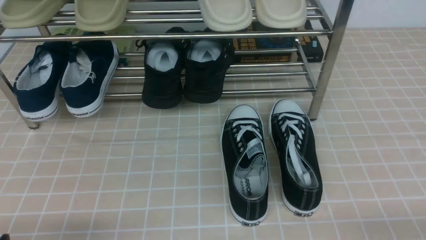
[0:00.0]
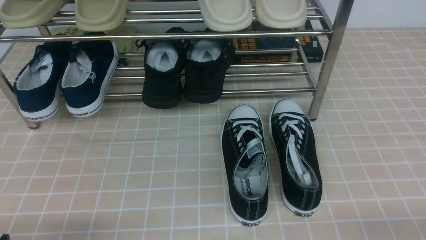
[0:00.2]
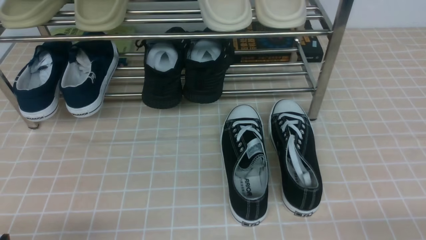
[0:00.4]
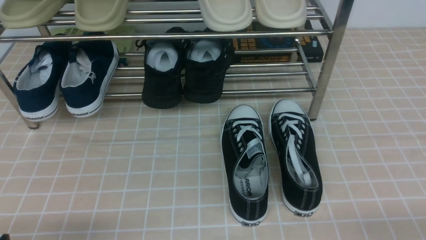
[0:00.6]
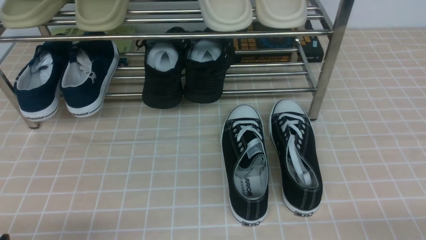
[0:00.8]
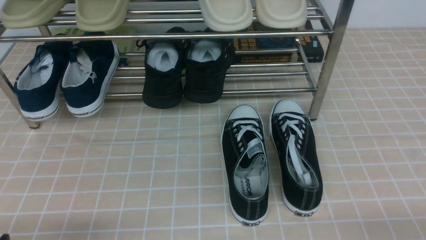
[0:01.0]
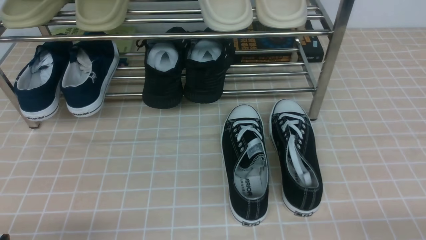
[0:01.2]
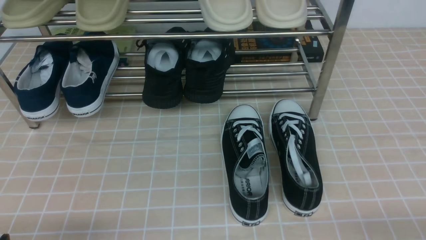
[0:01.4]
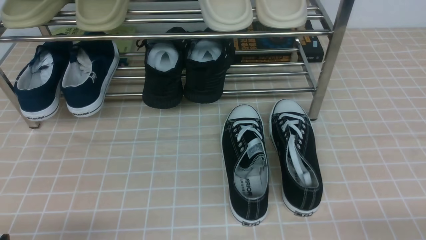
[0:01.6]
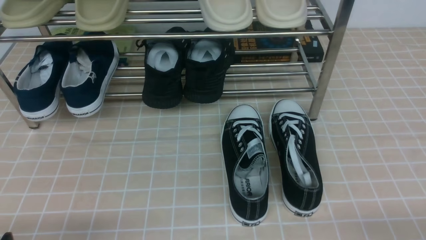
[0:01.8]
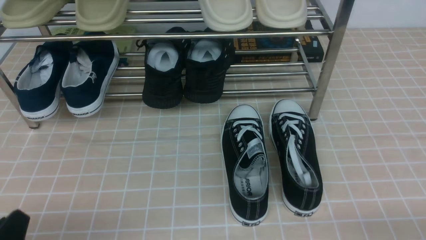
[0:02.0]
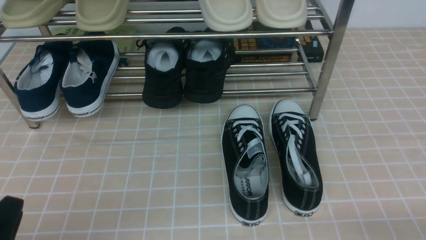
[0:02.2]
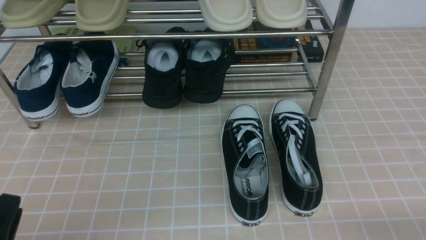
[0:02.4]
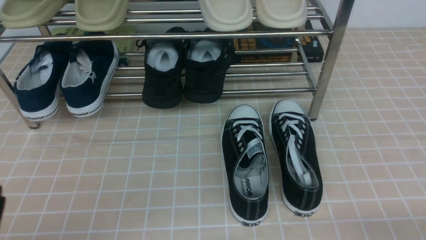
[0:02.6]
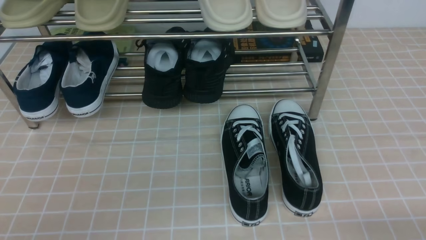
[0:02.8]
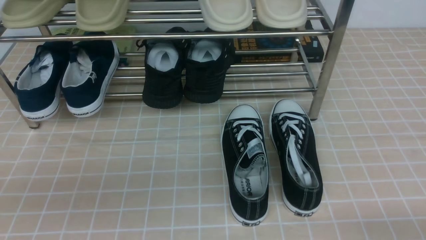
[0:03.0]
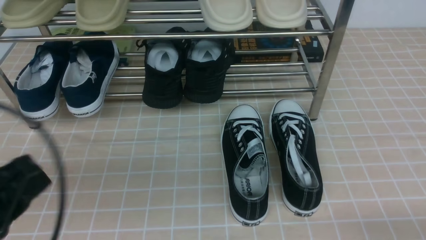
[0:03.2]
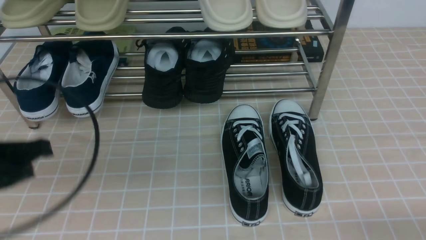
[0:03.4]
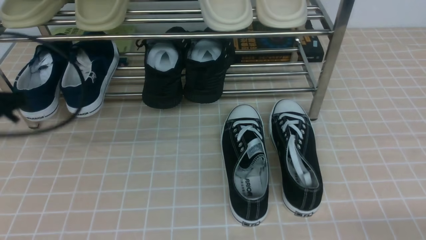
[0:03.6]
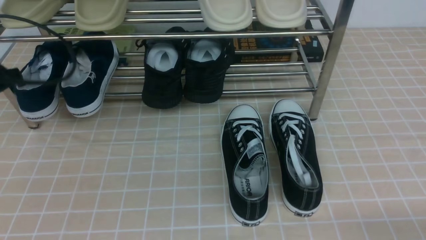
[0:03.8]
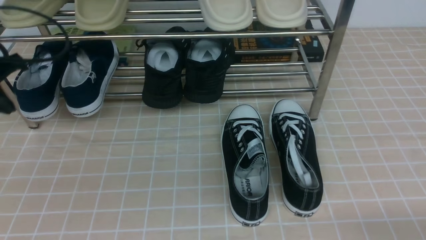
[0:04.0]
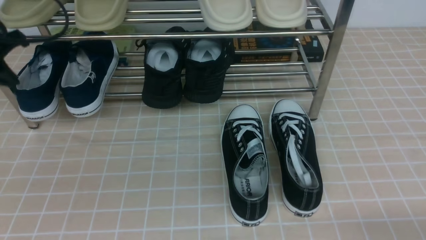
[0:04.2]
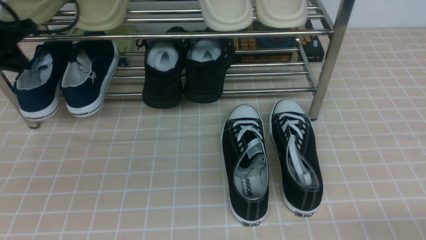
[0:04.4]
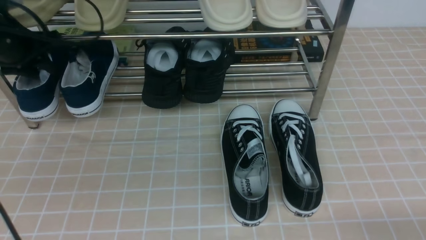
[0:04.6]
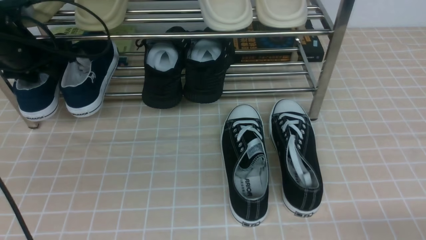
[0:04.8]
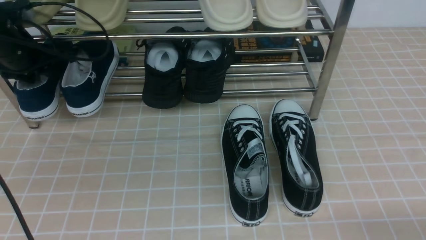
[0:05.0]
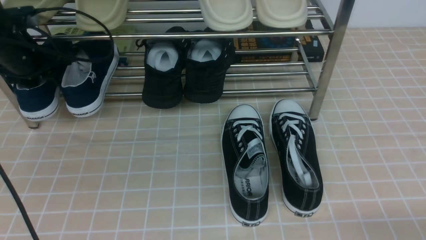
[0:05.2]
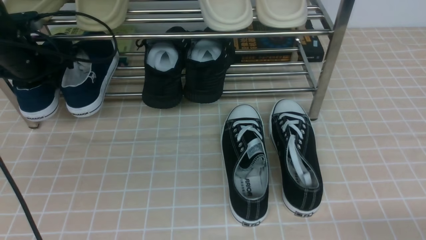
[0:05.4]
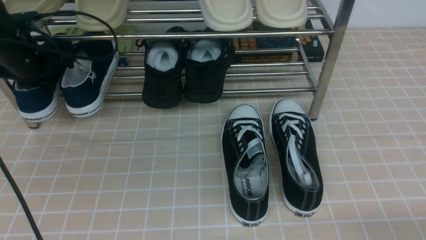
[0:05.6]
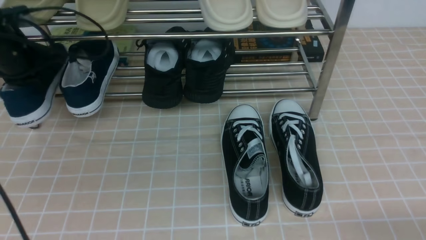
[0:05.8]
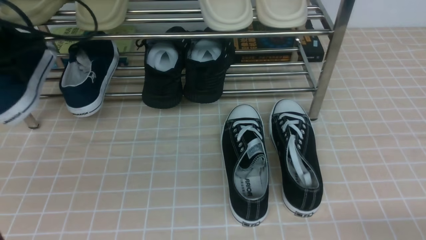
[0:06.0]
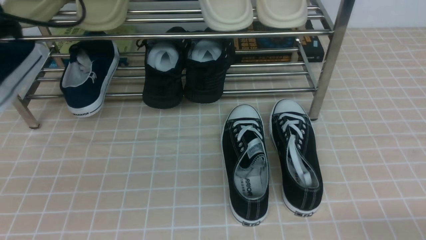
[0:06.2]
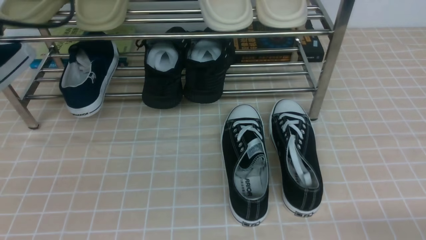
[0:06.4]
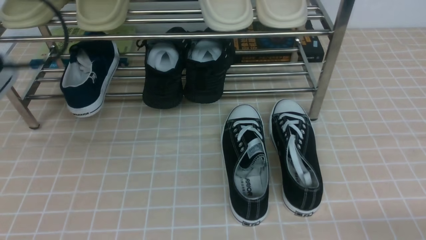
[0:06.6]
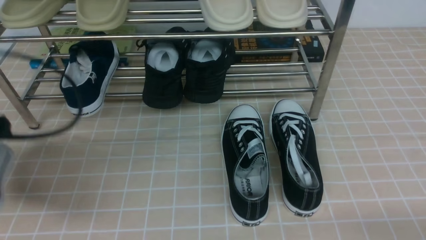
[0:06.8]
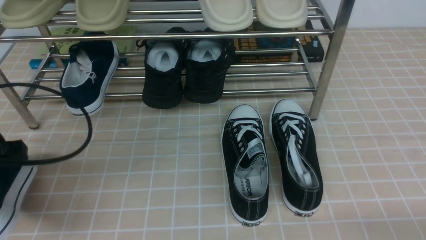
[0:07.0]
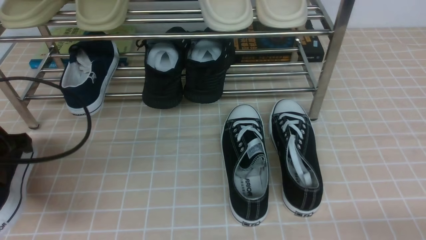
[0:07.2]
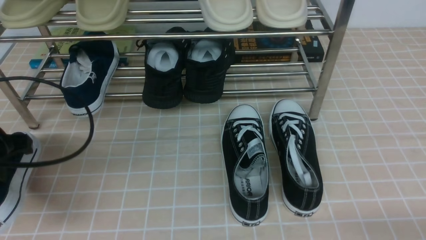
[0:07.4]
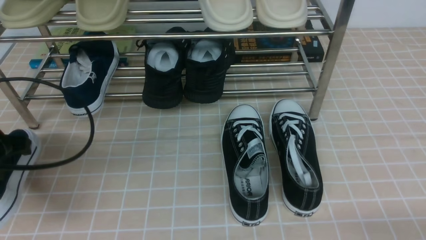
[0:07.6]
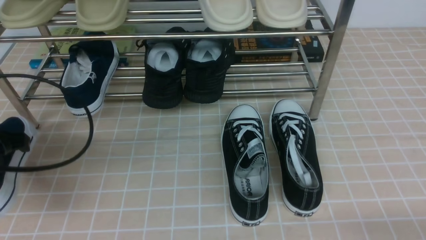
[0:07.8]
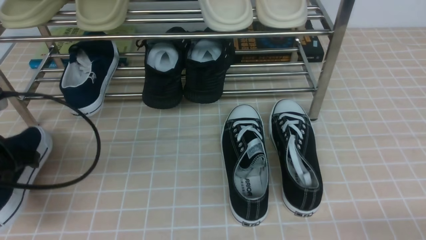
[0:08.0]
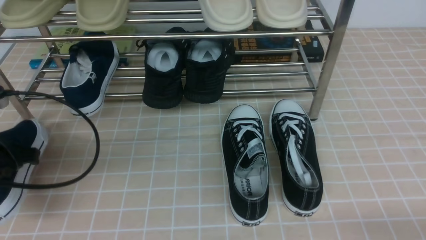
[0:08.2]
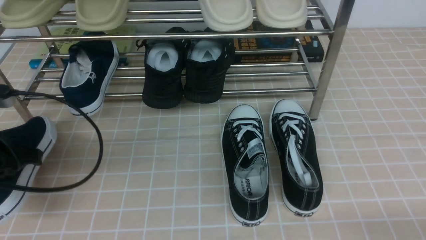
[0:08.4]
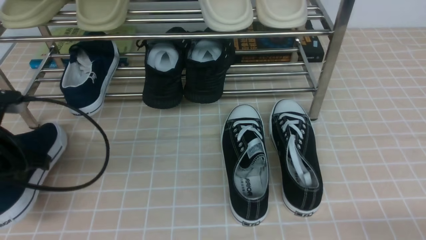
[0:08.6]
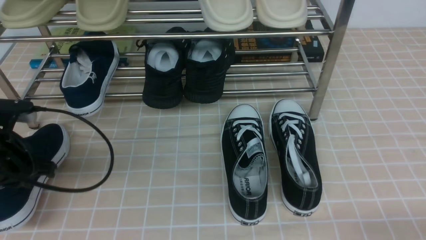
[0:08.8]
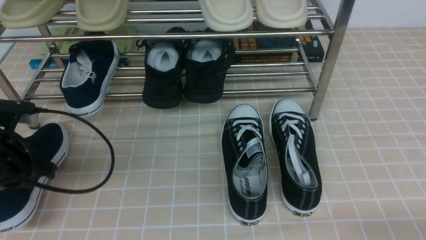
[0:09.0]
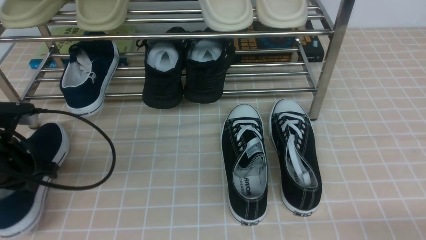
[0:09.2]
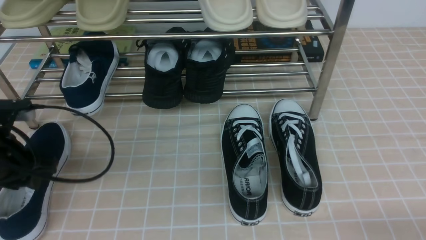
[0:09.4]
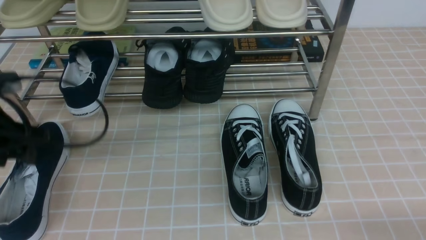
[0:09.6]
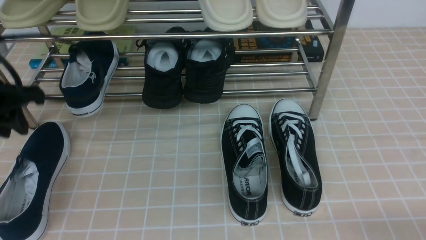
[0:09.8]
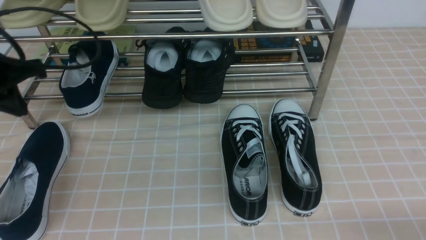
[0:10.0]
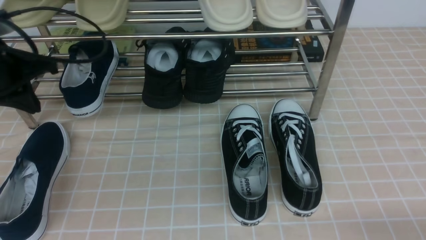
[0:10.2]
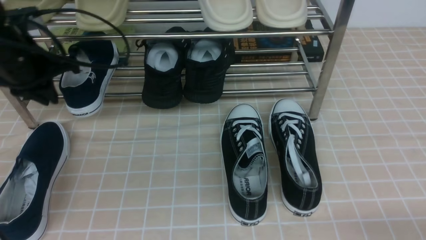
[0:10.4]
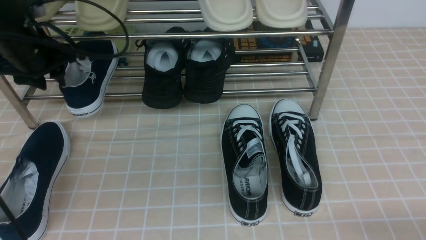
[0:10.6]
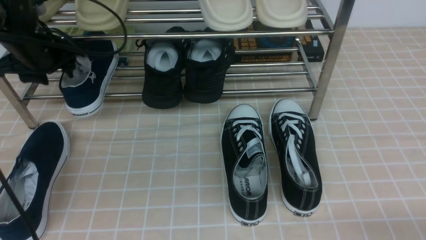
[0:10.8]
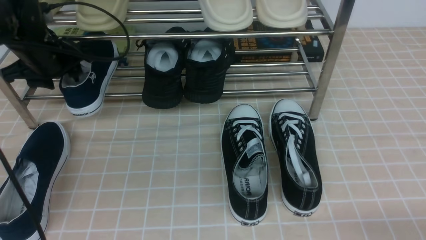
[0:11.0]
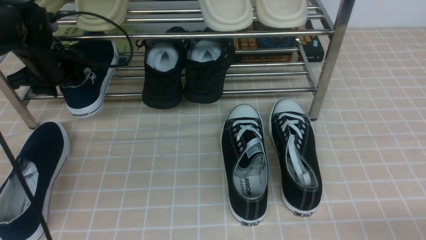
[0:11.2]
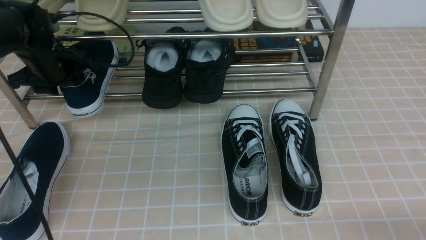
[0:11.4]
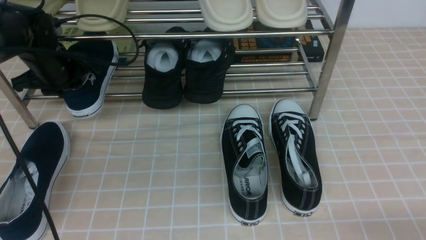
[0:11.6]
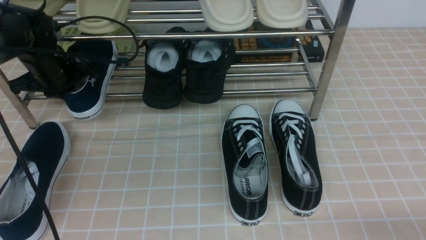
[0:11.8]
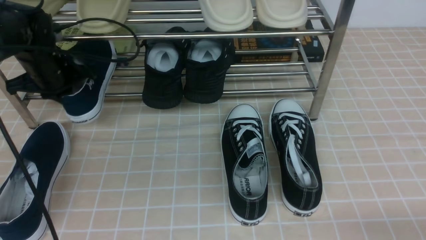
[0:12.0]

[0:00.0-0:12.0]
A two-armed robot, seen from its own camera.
Step, 0:00.0 to 0:05.6: use the left arm to clamp a shoe on the left side of the shoe rack.
Step, 0:05.8 to 0:09.4: Use your left arm to remove the clamped shoe from the shoe rack and put it down.
Step, 0:09.6 to 0:12.0: use the left arm to clamp a shoe on the left side of the shoe rack.
0:01.6 to 0:03.0: The left gripper is displaced upward by about 10 cm, and closes its fingers.
0:03.0 to 0:04.4: The left gripper goes approximately 30 cm forward.
0:04.4 to 0:06.0: The left gripper reaches roughly 5 cm downward, then returns, and opens and closes again.
0:06.0 to 0:07.6: The left gripper shifts roughly 15 cm backward and downward.
0:07.6 to 0:09.0: The left gripper moves downward, roughly 5 cm.
0:09.0 to 0:10.4: The left gripper shifts about 15 cm forward and upward, and opens and closes again.
0:10.4 to 0:12.0: The left gripper heads downward and forward, covering roughly 10 cm, and opens and closes again.

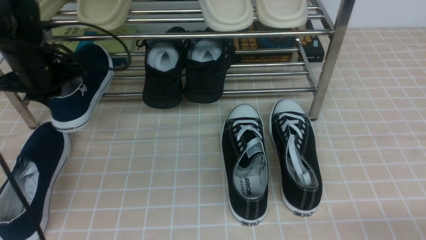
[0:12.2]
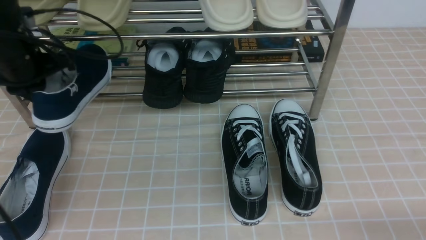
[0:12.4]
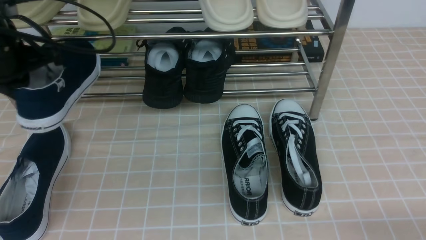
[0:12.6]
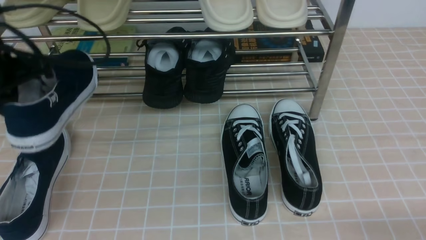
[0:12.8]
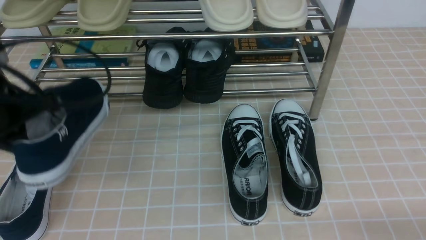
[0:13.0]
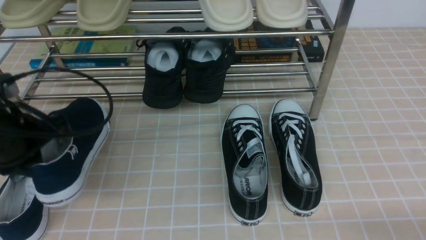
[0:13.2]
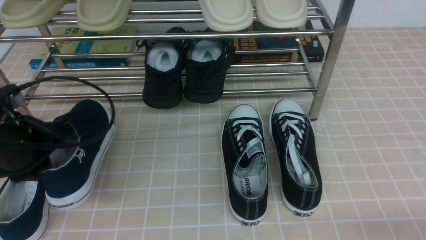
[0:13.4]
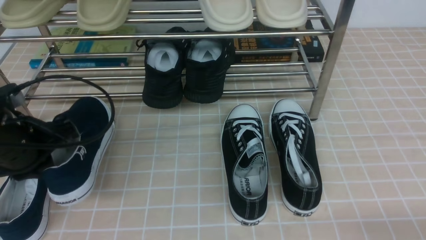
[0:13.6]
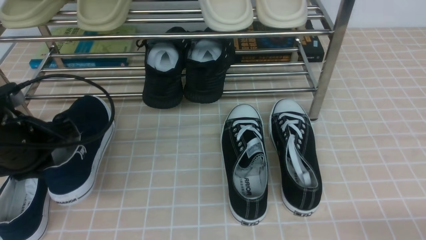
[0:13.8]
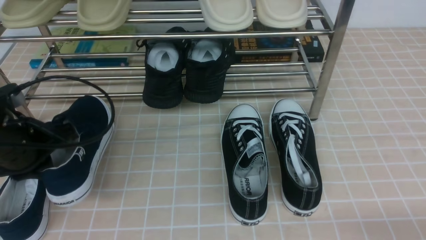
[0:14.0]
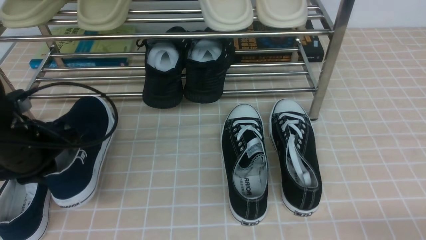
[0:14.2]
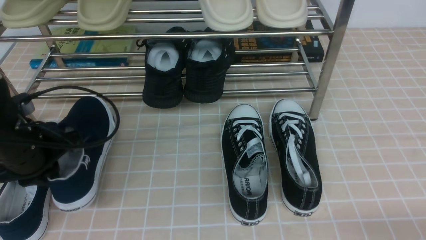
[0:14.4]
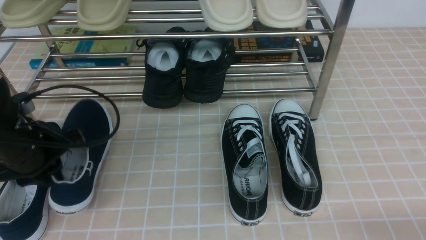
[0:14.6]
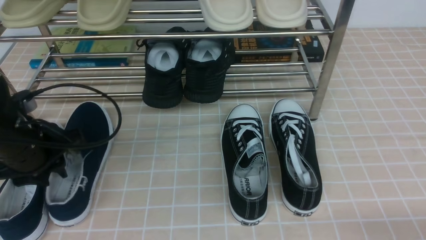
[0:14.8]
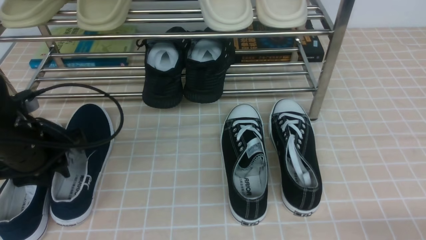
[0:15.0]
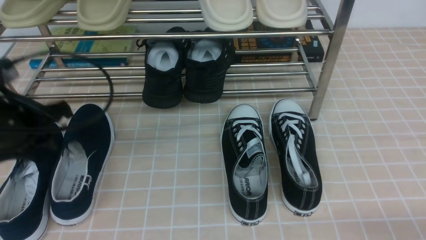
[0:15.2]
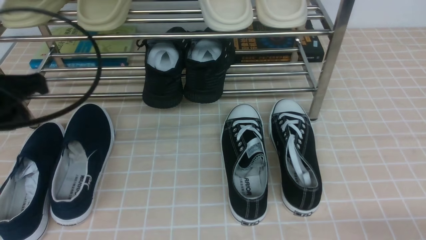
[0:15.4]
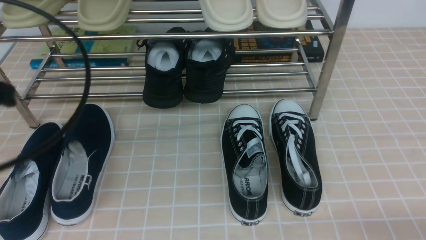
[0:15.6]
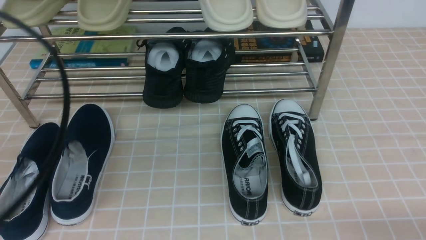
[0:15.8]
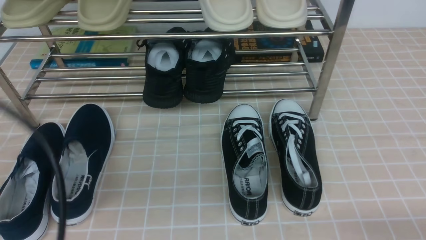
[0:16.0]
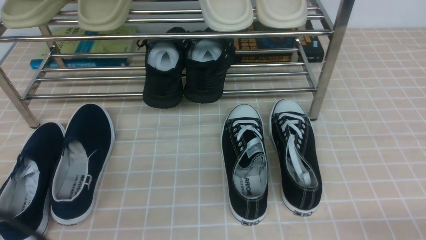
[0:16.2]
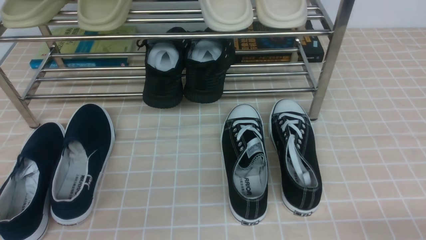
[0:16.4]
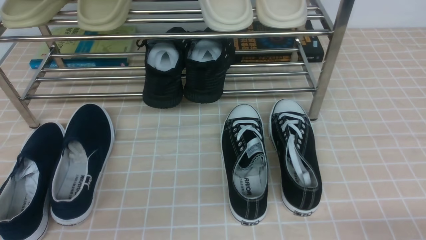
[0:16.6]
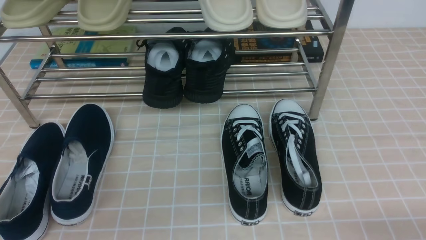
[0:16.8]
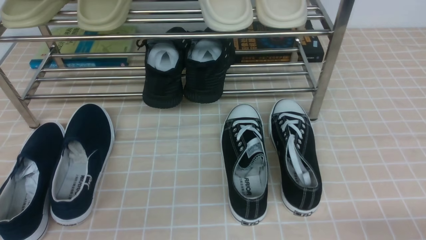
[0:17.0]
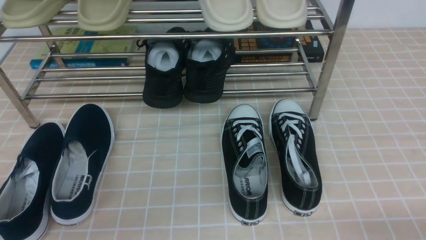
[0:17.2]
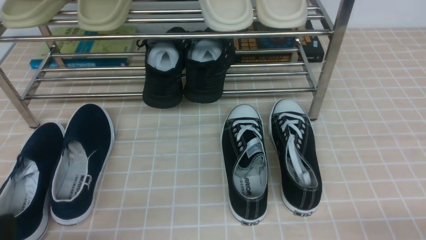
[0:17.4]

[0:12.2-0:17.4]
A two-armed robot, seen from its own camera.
Step, 0:12.2 to 0:15.2: Use your left arm to remove the clamped shoe from the shoe rack and put it down.
0:12.2 to 0:14.0: The left gripper travels backward by approximately 15 cm.
0:14.0 to 0:15.6: The left gripper goes roughly 15 cm upward and backward, and opens, then closes once more.
0:15.6 to 0:17.4: The left gripper shifts about 20 cm downward and backward.
